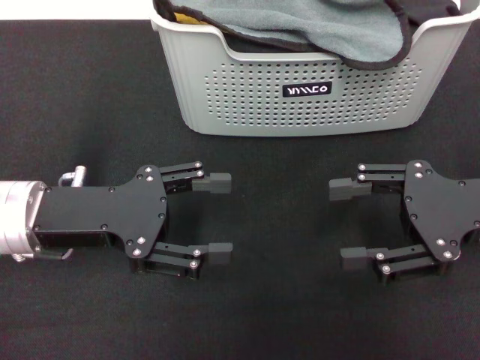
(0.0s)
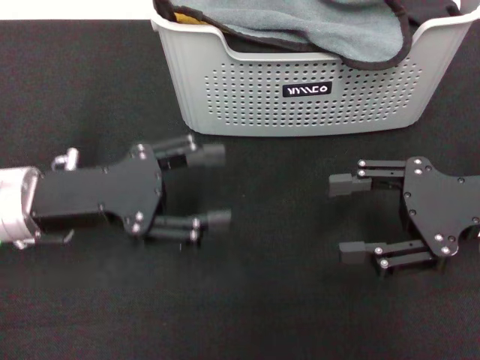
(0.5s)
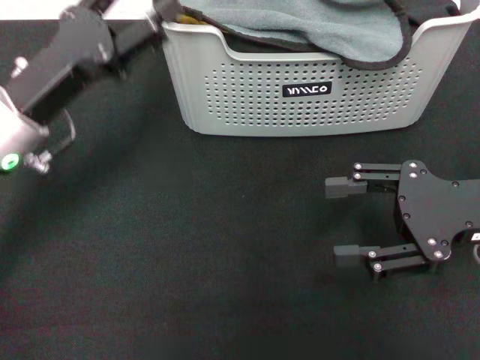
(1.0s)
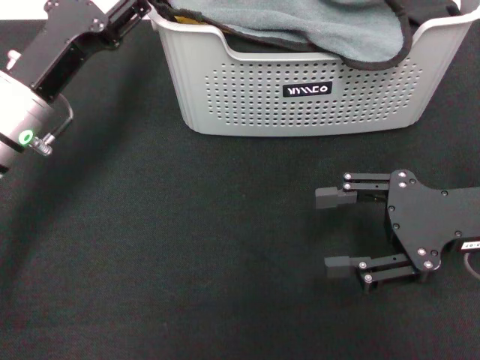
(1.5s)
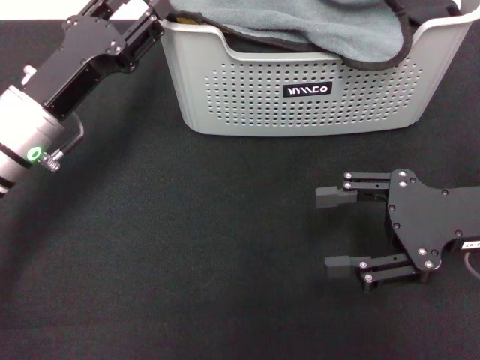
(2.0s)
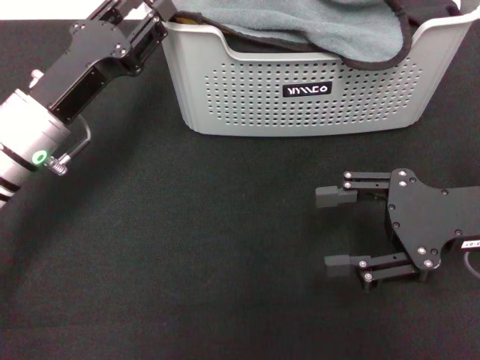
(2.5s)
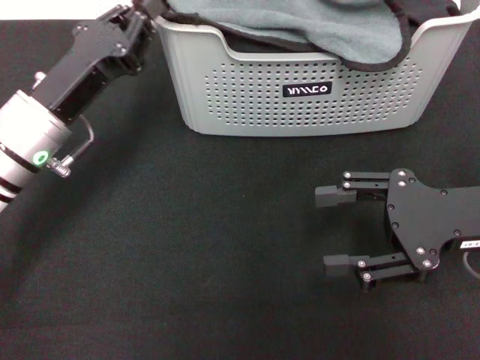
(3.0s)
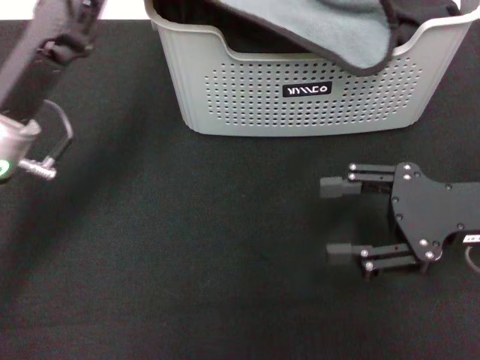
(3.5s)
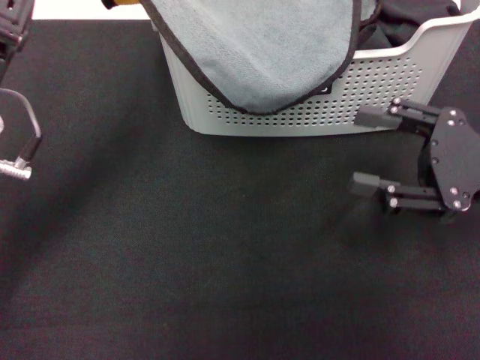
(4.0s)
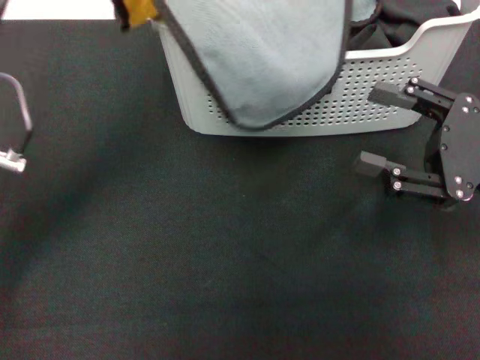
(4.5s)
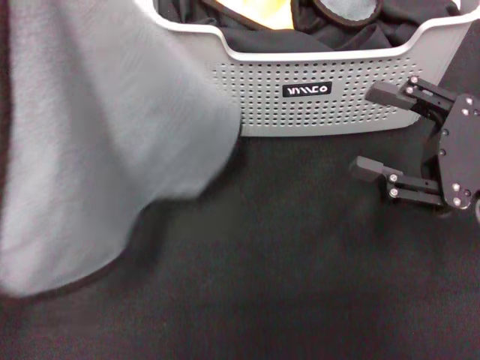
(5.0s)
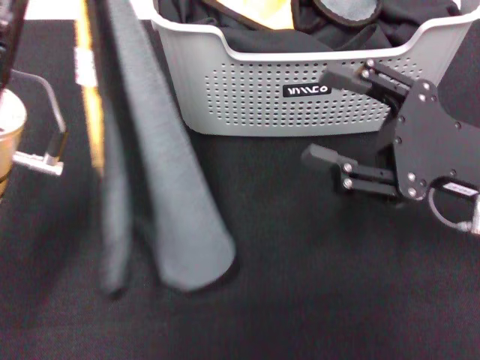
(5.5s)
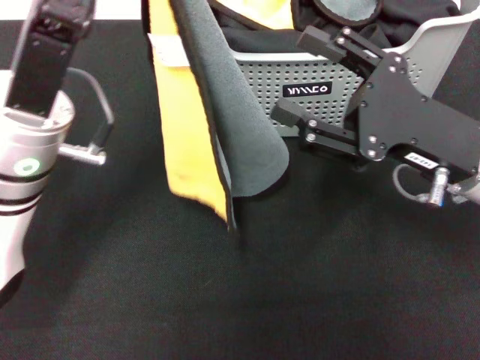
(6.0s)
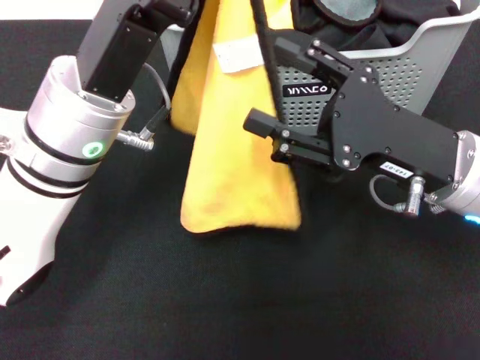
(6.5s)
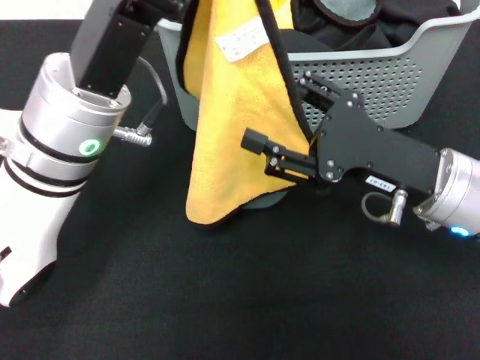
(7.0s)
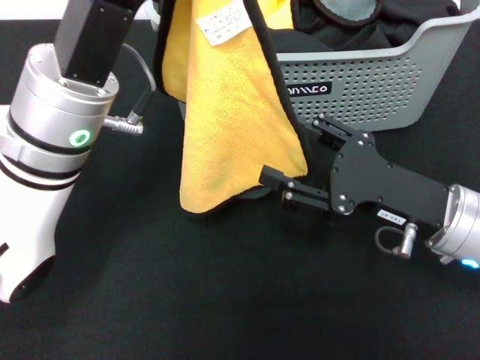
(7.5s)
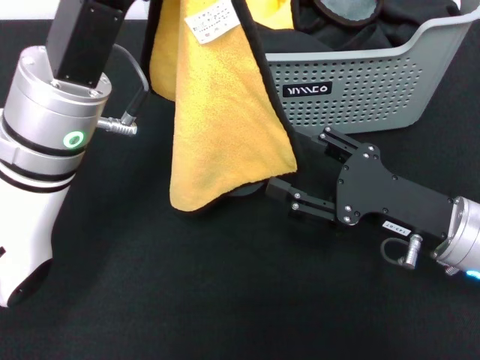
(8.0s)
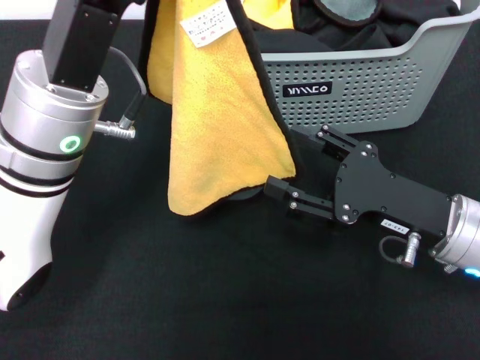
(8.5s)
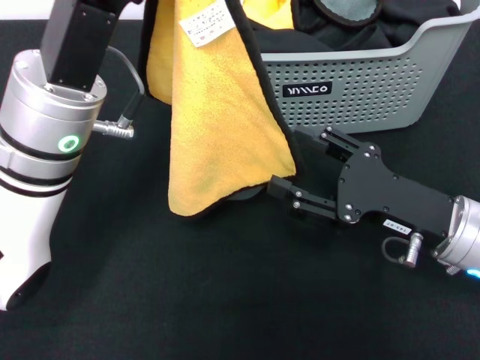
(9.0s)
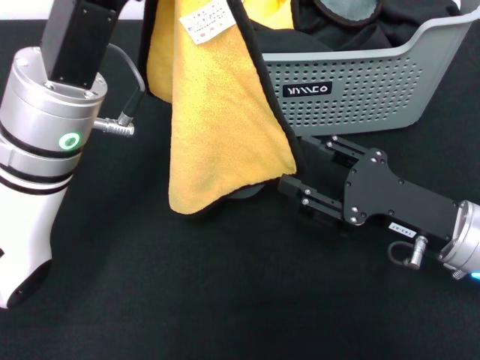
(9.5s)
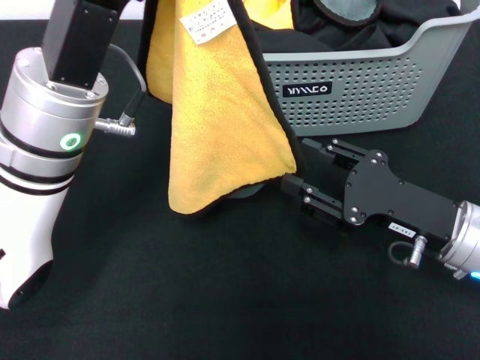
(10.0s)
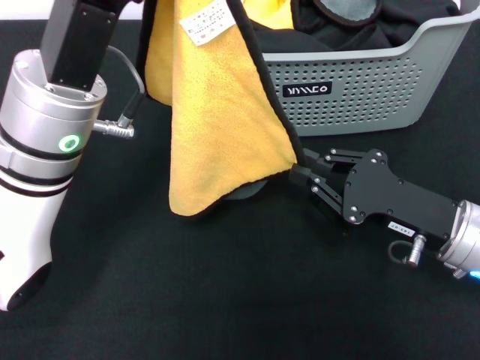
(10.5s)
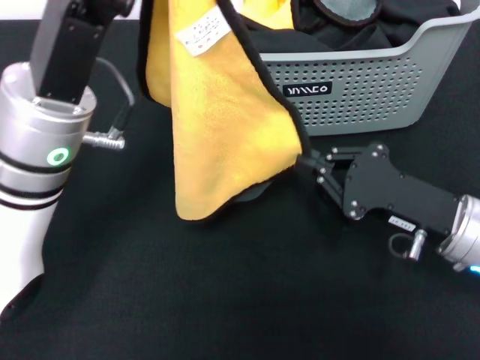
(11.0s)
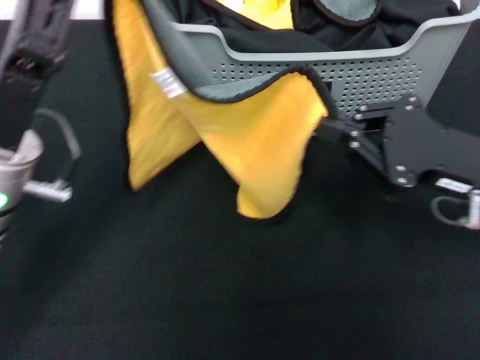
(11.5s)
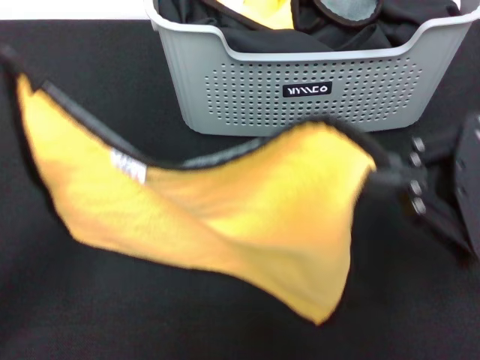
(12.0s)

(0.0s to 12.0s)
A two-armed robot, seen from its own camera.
Task of the whole recording: pick up the towel from the storage box and lay it flat on the black tablecloth.
Step, 0.0s - 3.0s: Pick up a towel with the left gripper.
Step, 3.5s - 10.5s: Spread the towel flat with the left gripper.
0.0s - 2.0s: The left gripper heads forward, covering approximately 5 cm.
2.0s - 4.0s: The left gripper moves about 5 cm, and closes.
4.0s - 6.0s: The left gripper moves to the right, roughly 5 cm. The right gripper moves to the left, some 5 cm.
6.0s - 8.0s: The right gripper is displaced downward by approximately 5 cm.
8.0s - 10.0s: The two grippers keep their place.
10.0s - 12.0s: The left gripper shifts roughly 15 cm to the left and backward. The right gripper moves upward, approximately 15 cm, and closes.

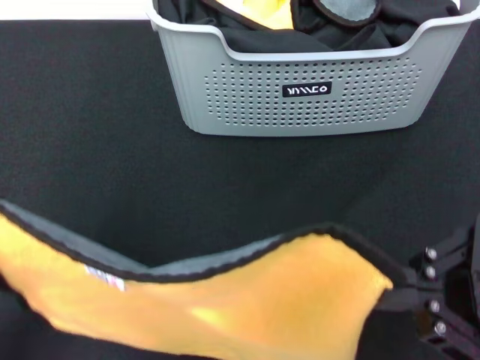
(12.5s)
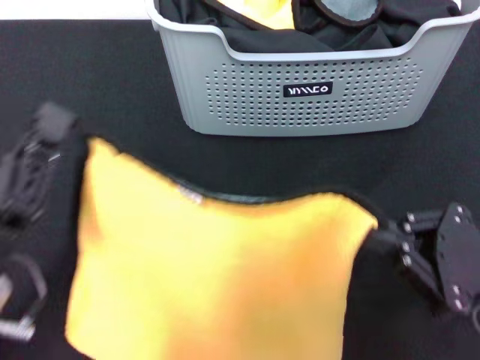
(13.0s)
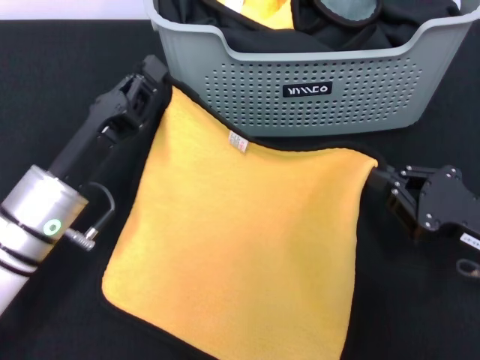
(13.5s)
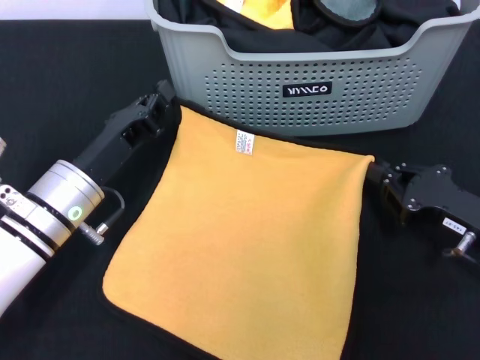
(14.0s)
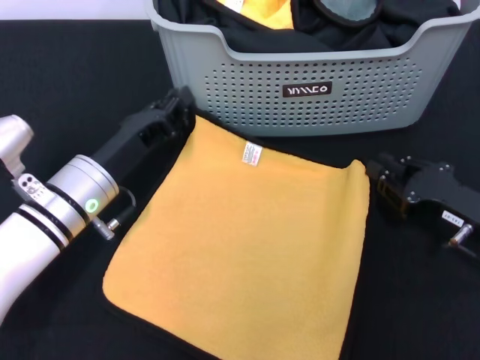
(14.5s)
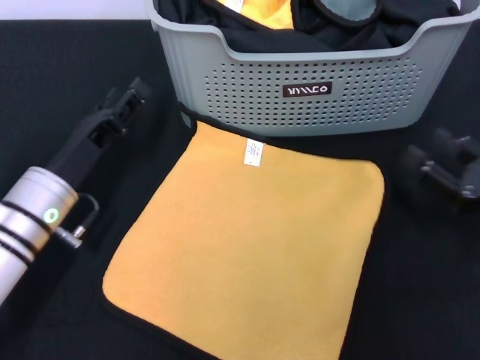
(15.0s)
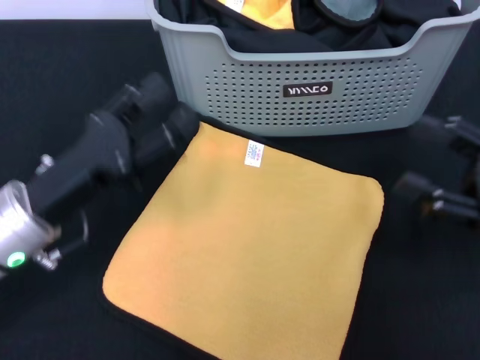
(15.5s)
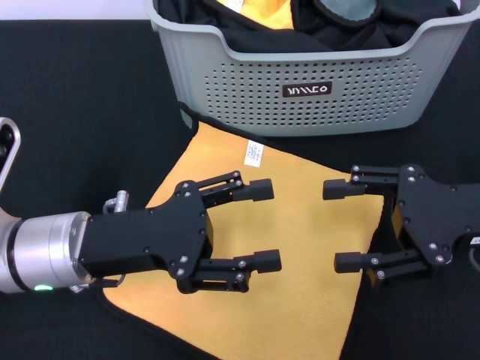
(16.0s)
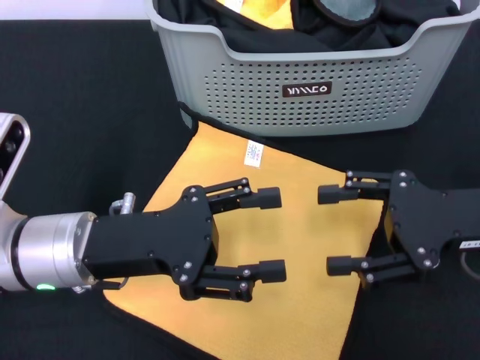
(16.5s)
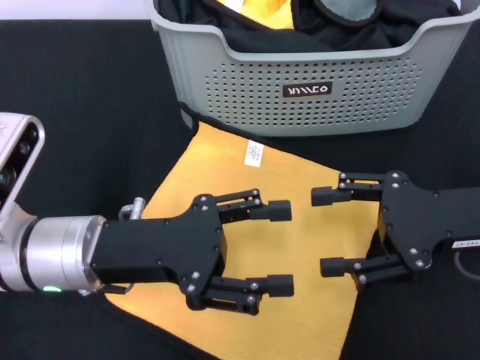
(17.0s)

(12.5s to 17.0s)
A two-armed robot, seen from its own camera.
Task of the whole recording: pick up the towel from the storage box and lay it flat on the black tablecloth.
Step, 12.5s - 15.0s: Spread the towel flat with the right gripper.
12.5s - 14.5s: The left gripper moves forward and downward, some 20 cm, while the right gripper goes roughly 15 cm downward and forward.
14.5s - 17.0s: The left gripper heads upward and backward, covering approximately 10 cm, and opens its fingers; the right gripper is displaced upward by about 10 cm, and opens.
